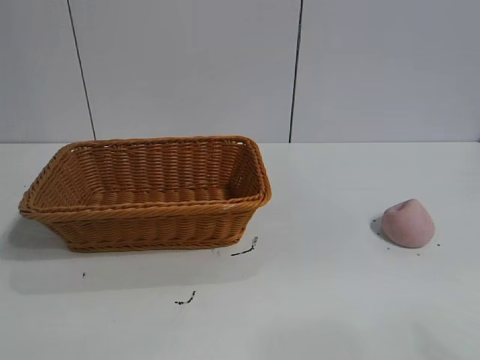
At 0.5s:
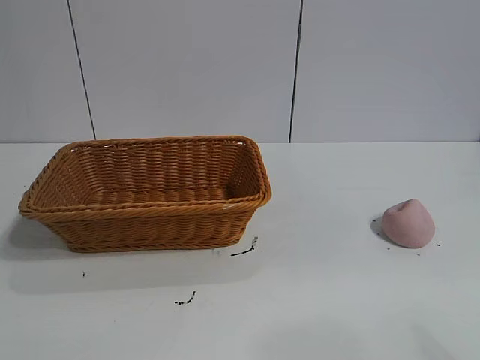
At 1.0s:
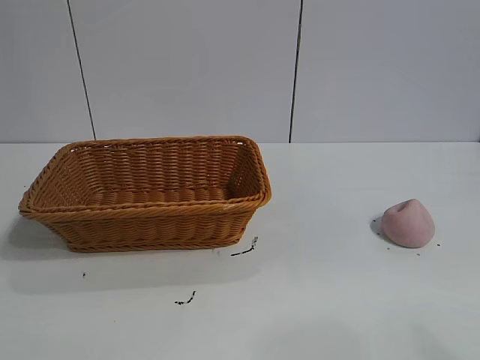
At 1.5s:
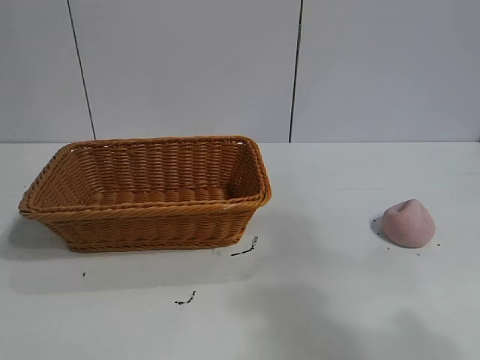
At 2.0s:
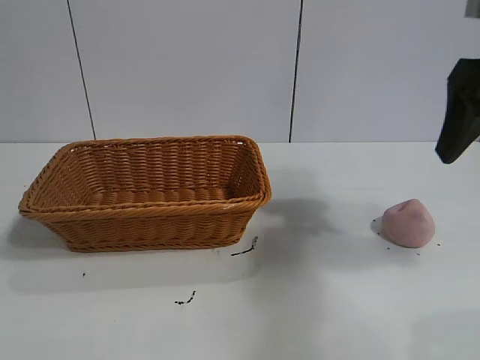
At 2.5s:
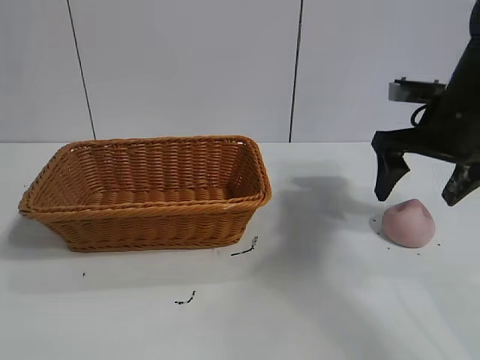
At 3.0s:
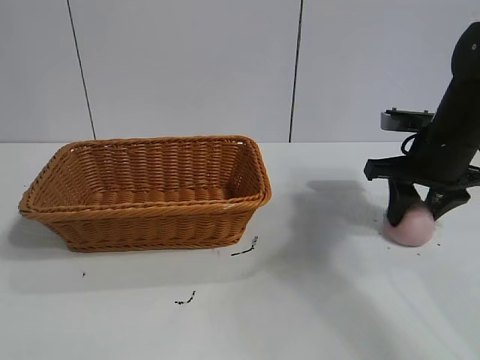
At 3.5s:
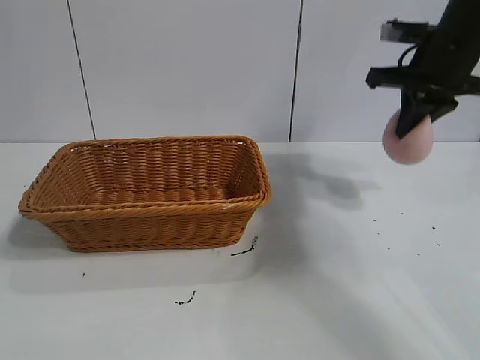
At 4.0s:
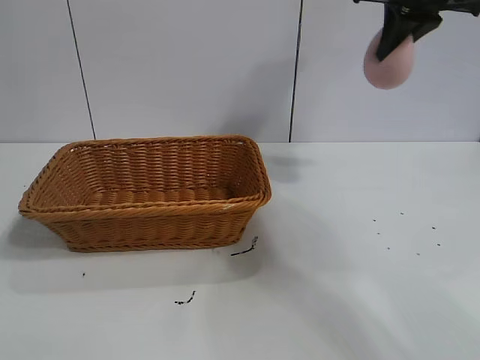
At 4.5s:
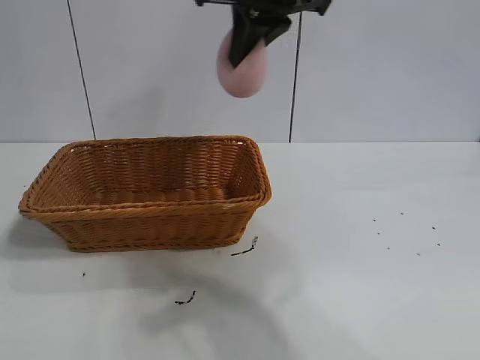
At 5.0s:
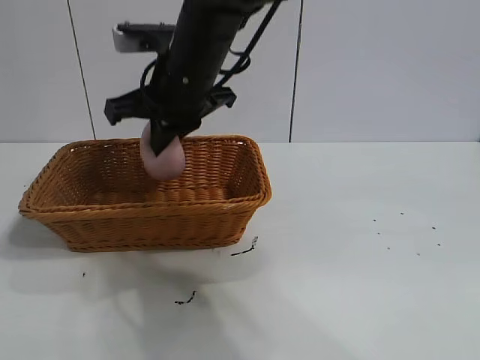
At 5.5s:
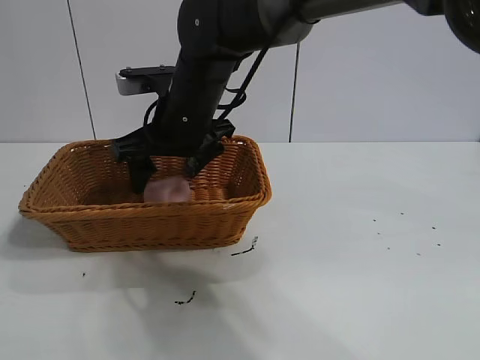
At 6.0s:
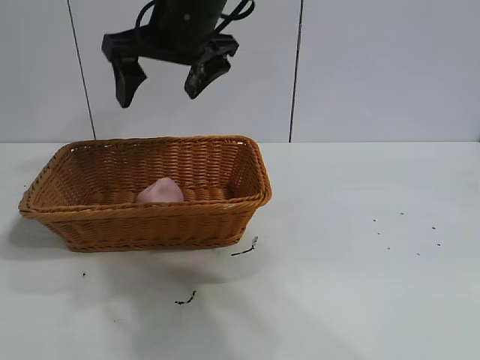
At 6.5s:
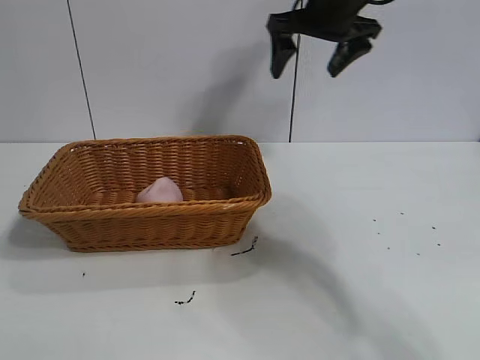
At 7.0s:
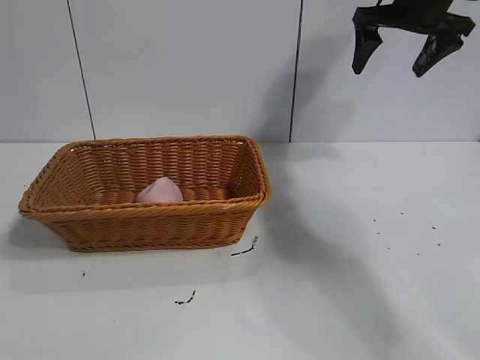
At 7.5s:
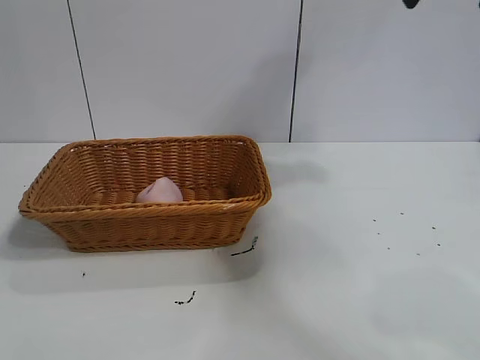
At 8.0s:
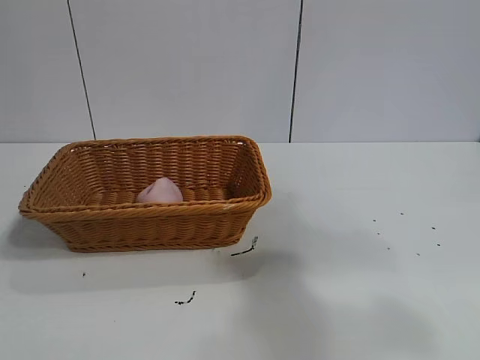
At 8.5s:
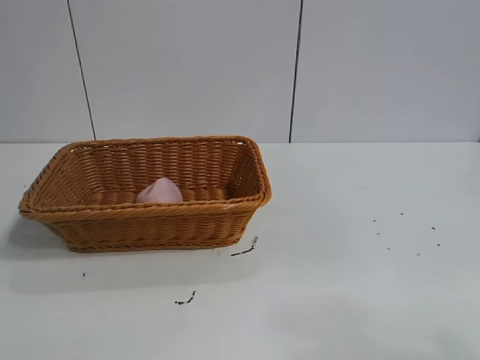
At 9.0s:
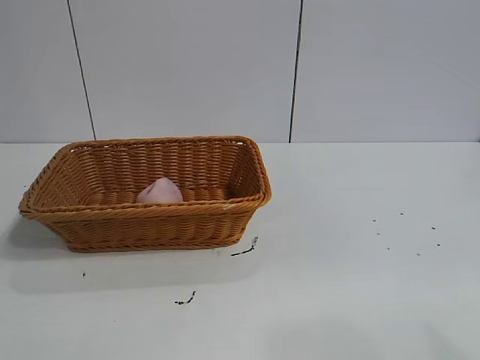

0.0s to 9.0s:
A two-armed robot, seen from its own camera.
Task of the whole recording: pick up the peach and put it into the basket.
Step, 1.5s to 3.0s: Grasp the peach with right gripper.
Step, 3.5s to 5.5s: Place the peach in the basket with right gripper.

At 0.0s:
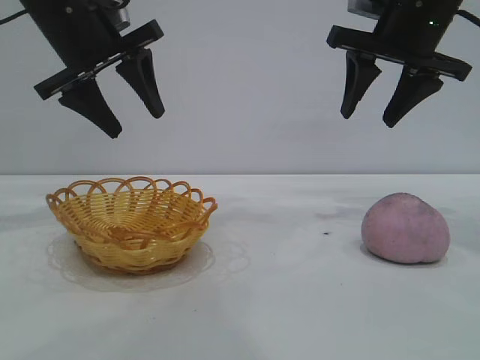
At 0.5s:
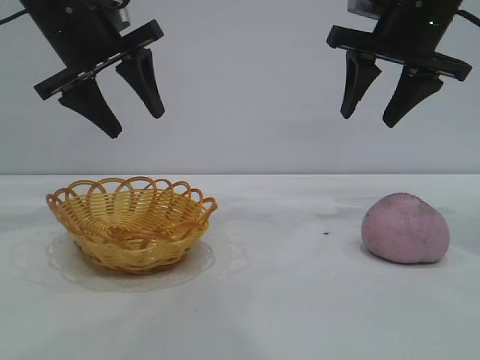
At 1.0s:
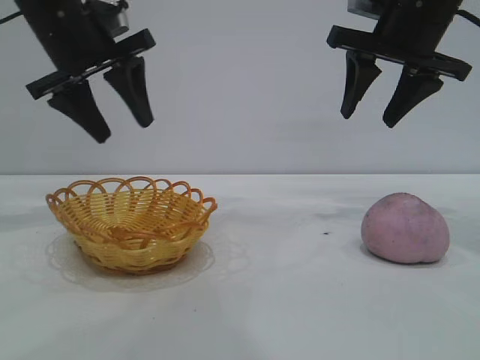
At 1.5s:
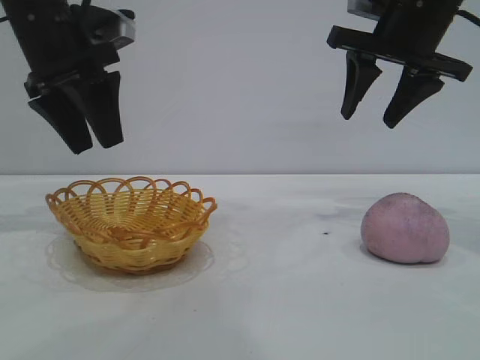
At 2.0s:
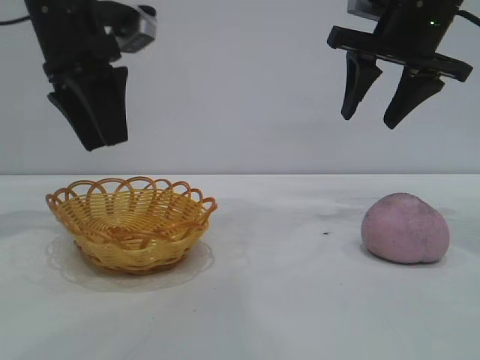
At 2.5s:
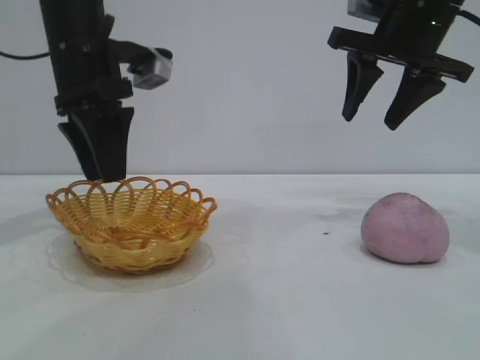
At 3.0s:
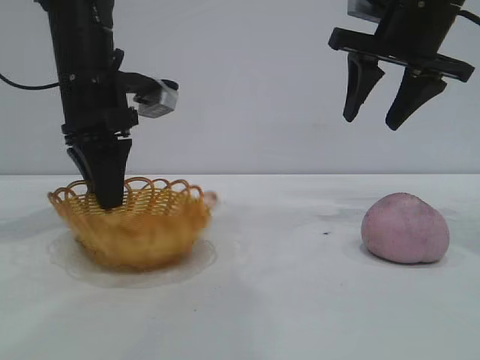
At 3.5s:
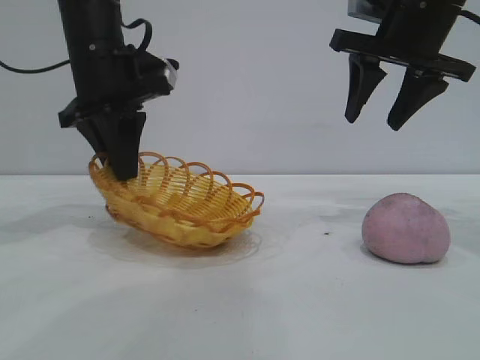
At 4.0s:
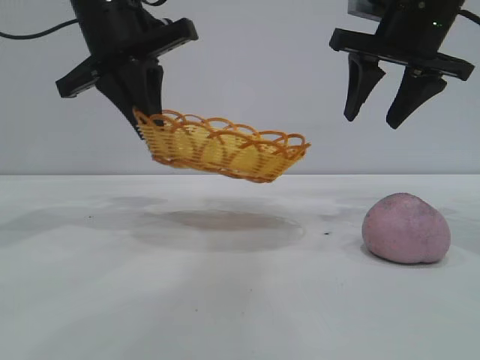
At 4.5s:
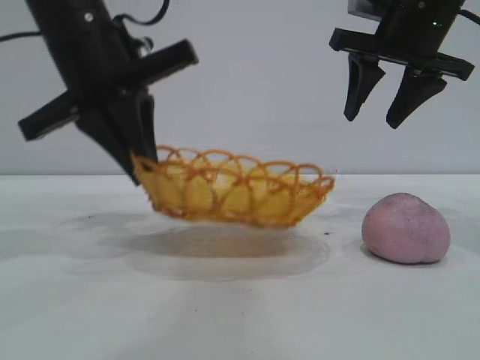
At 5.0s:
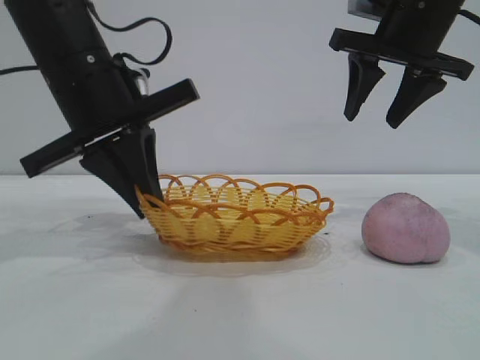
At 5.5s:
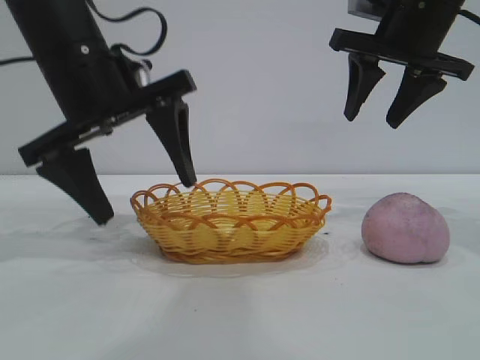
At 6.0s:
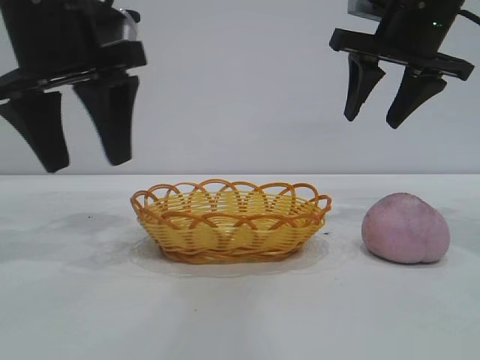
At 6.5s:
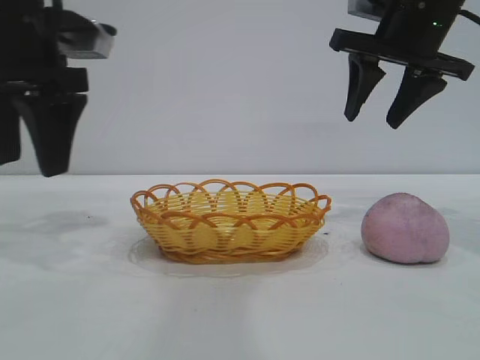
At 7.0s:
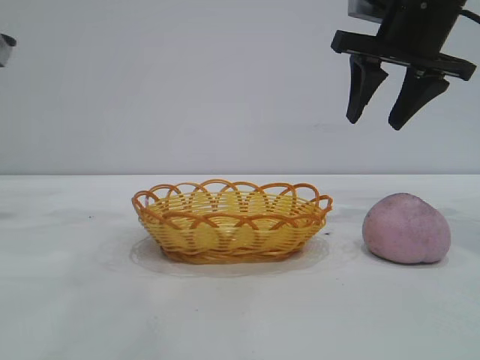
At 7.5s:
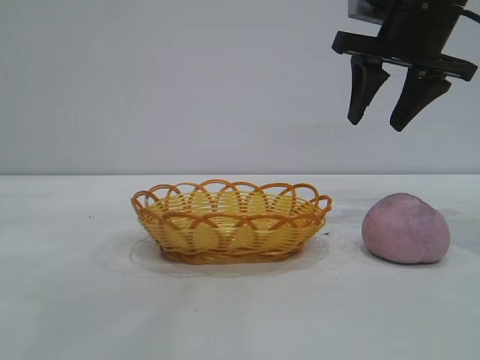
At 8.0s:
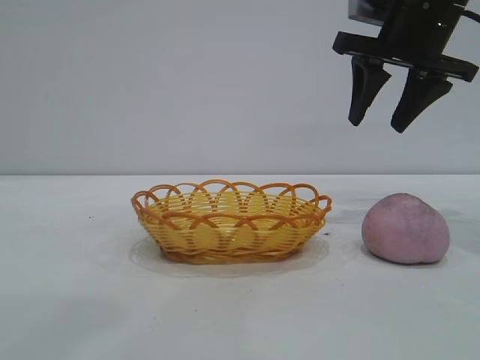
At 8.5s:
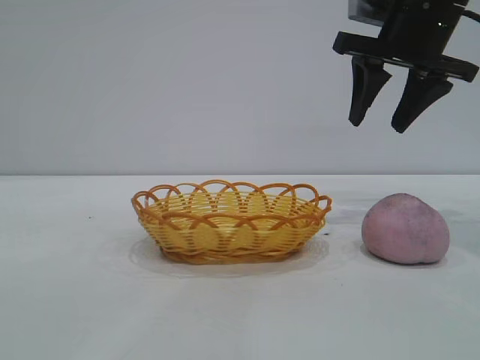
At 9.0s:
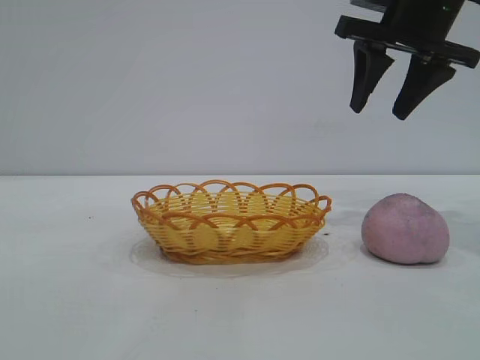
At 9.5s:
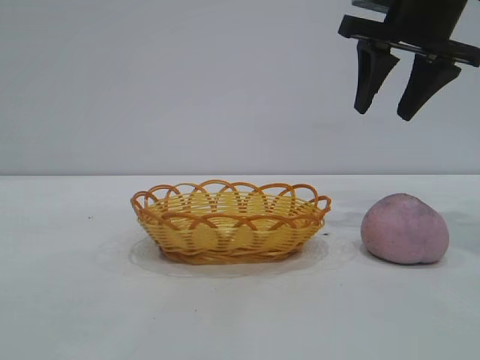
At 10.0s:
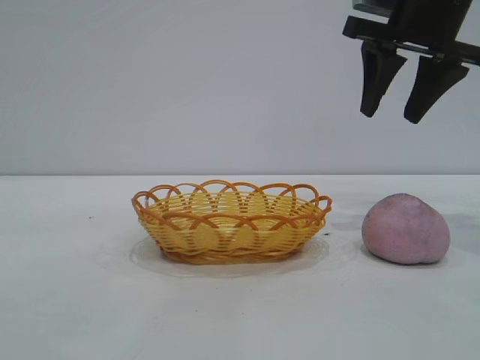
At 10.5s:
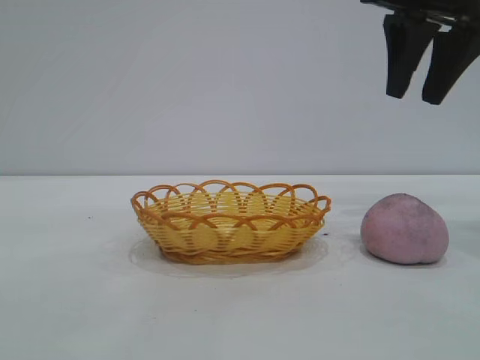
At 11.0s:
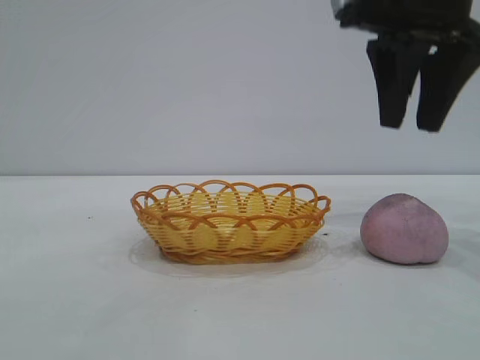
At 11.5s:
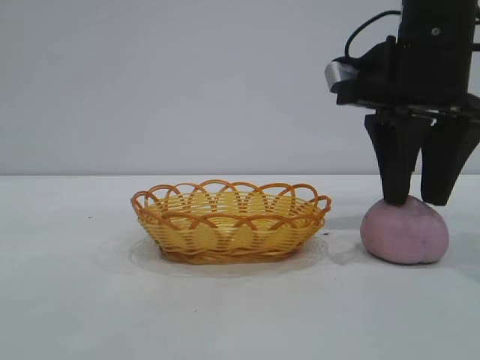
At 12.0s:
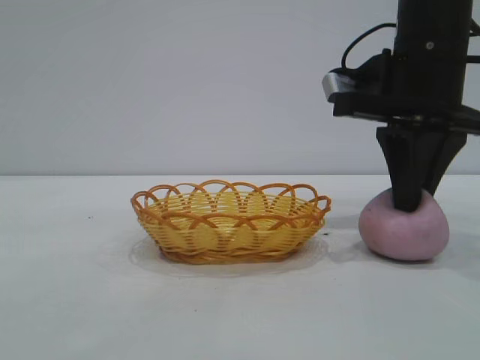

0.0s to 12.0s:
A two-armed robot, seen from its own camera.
Task of the whole recording: pick up the peach and put it into the basket.
Step, 0.0s to 6.0s: Move the basket to the center of view.

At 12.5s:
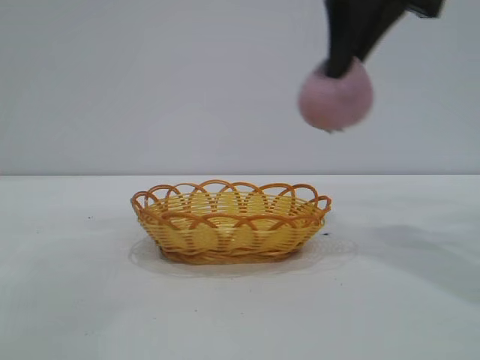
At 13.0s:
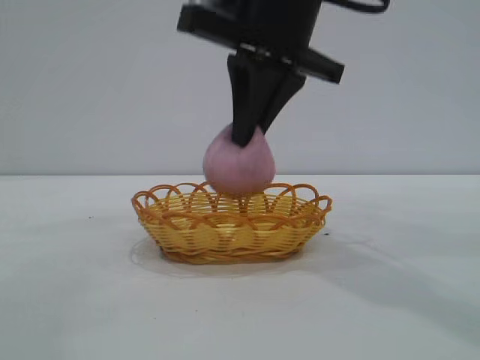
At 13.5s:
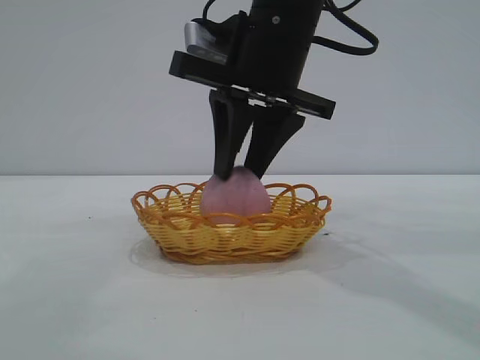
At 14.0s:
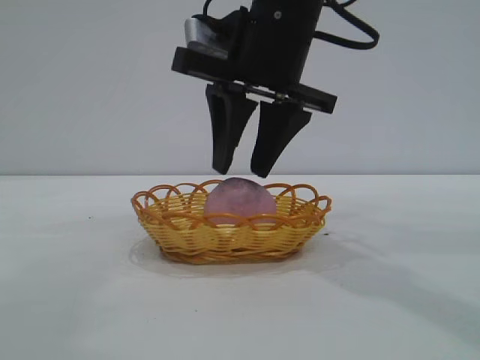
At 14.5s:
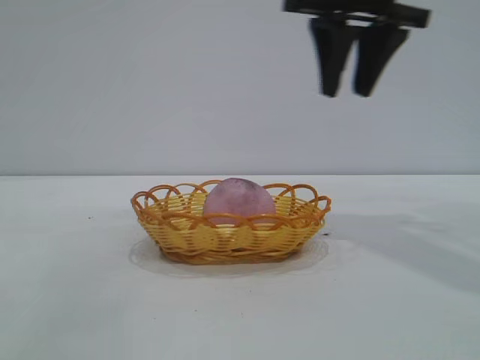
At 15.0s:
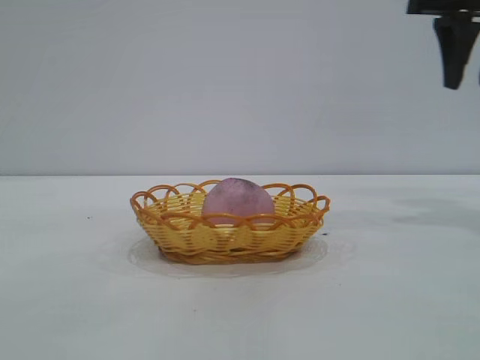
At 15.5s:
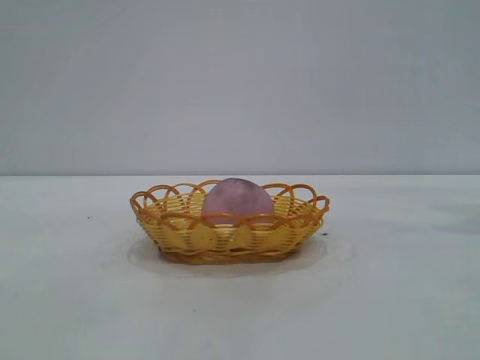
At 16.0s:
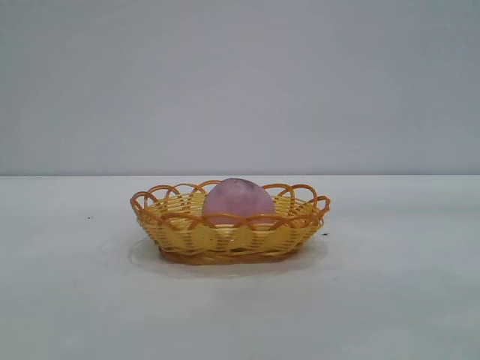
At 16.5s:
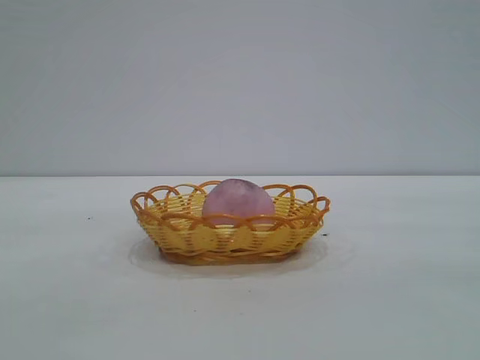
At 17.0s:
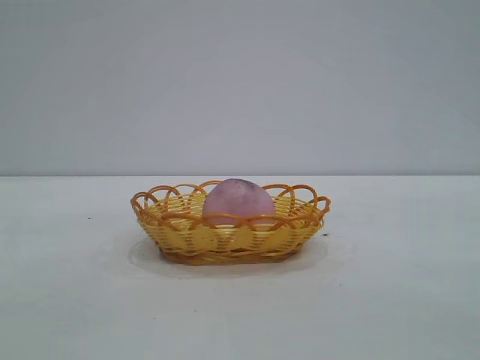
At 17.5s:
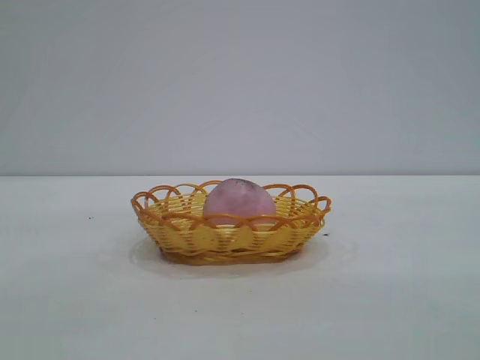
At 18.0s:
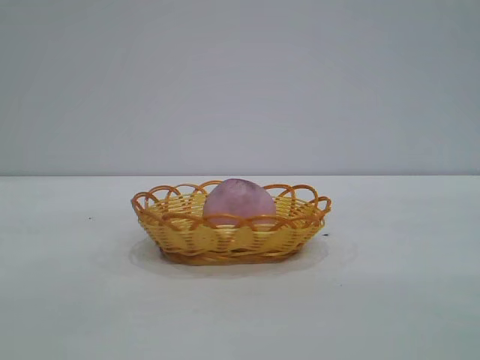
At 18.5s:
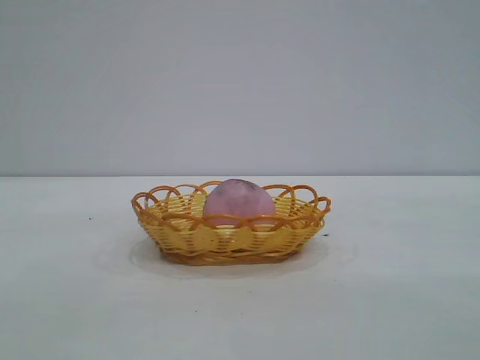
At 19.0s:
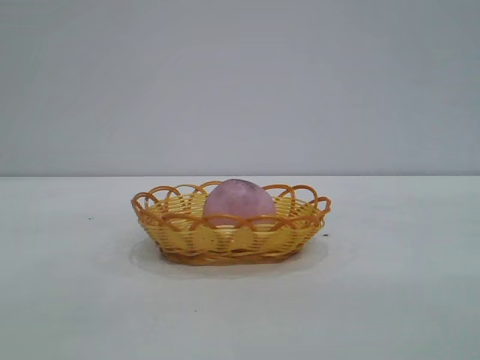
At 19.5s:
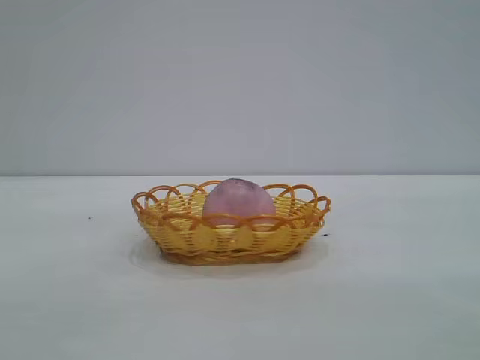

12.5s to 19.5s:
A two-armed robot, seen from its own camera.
Task of the whole recording: pick up the peach and put it into the basket.
Step, 12.5s to 14.0s: place the peach into the basket.
